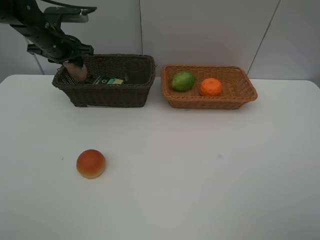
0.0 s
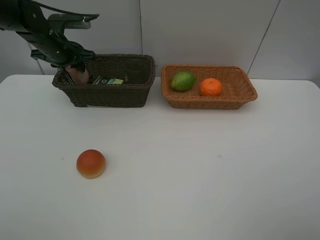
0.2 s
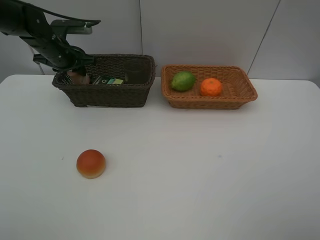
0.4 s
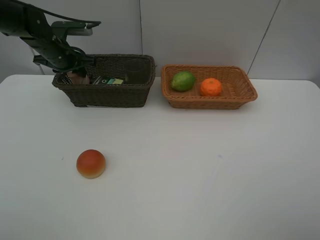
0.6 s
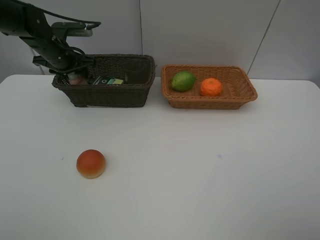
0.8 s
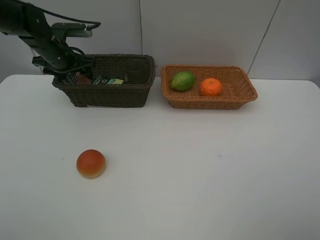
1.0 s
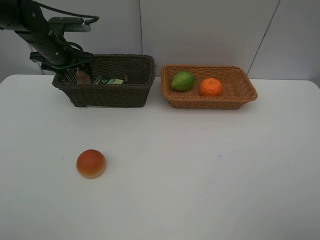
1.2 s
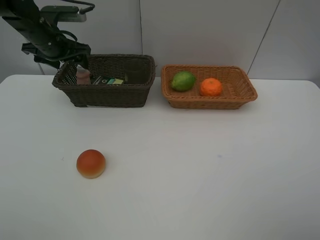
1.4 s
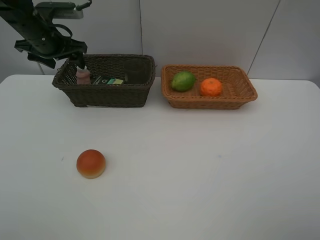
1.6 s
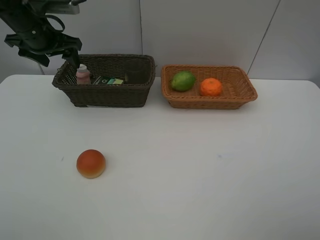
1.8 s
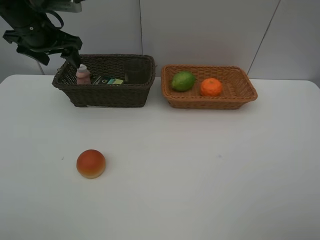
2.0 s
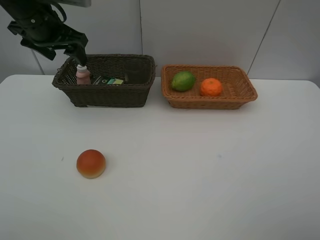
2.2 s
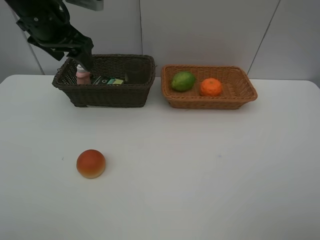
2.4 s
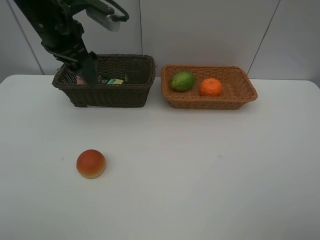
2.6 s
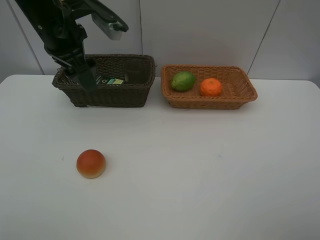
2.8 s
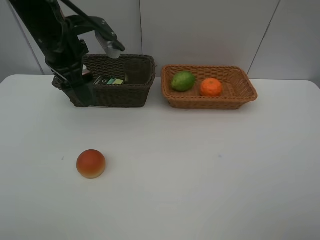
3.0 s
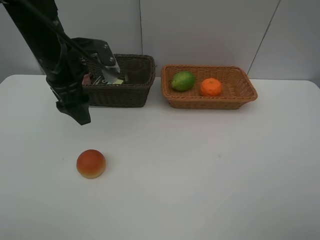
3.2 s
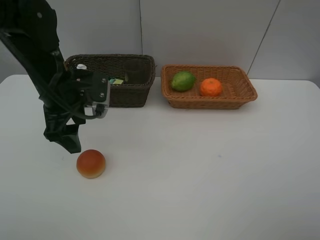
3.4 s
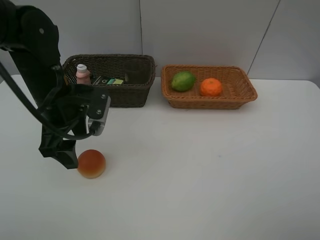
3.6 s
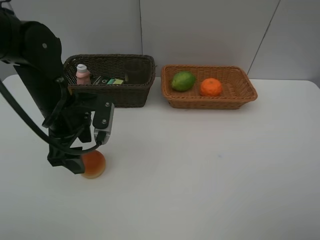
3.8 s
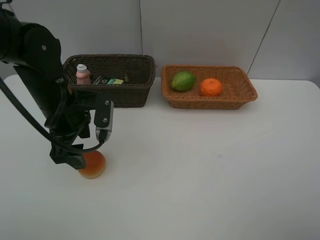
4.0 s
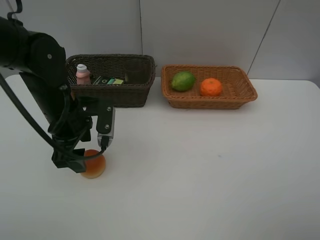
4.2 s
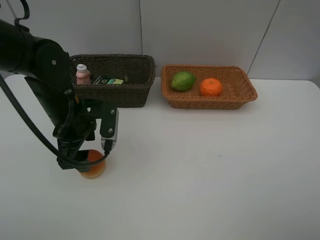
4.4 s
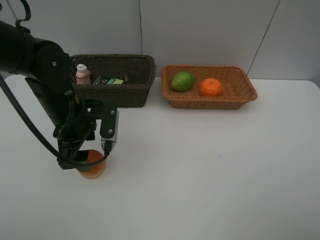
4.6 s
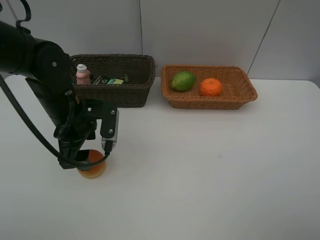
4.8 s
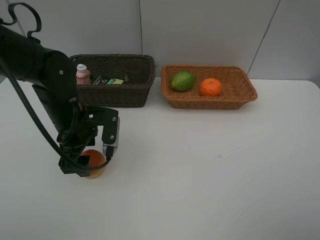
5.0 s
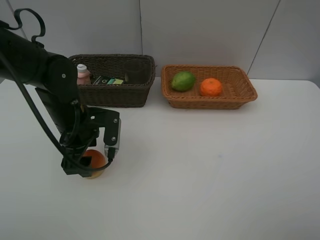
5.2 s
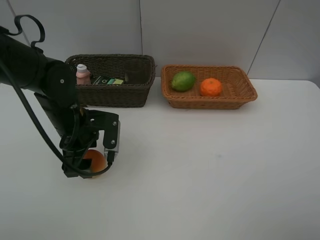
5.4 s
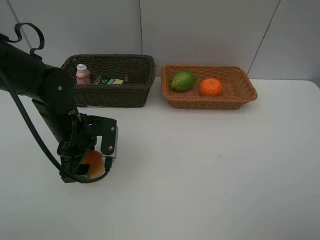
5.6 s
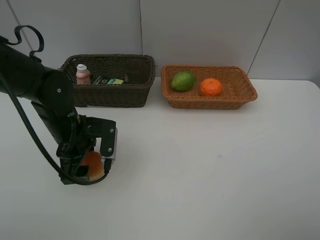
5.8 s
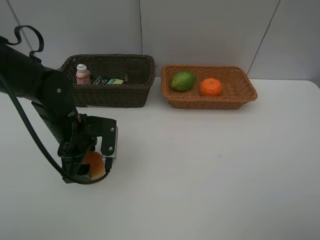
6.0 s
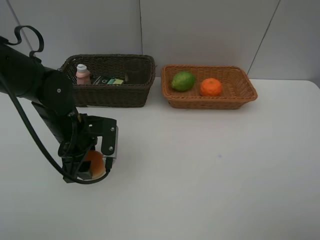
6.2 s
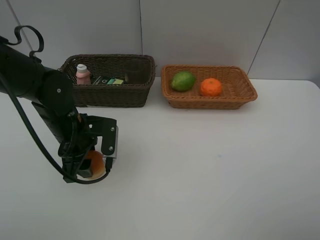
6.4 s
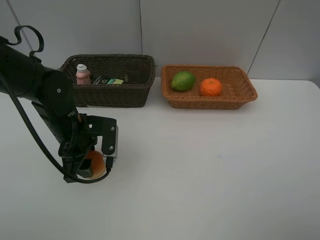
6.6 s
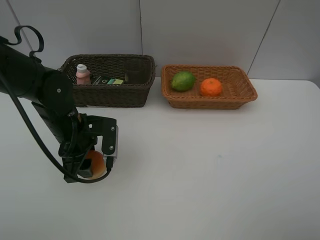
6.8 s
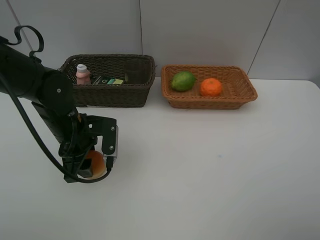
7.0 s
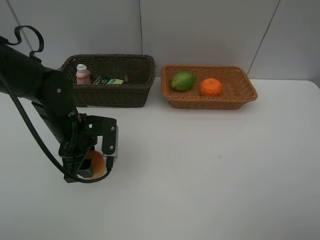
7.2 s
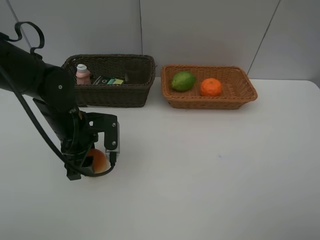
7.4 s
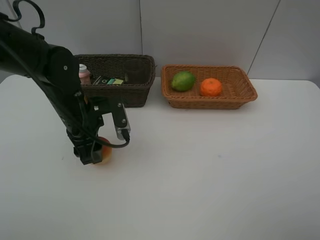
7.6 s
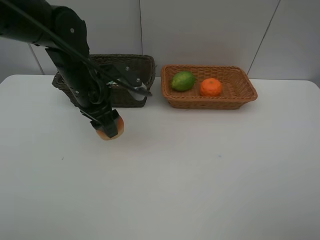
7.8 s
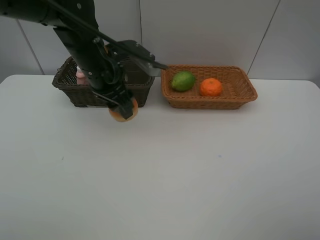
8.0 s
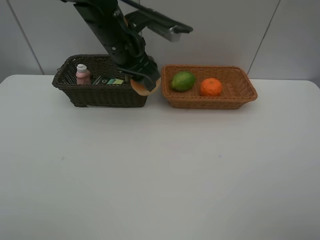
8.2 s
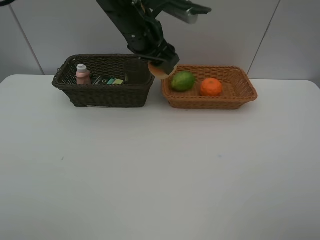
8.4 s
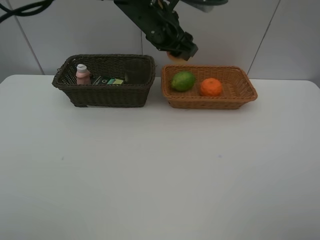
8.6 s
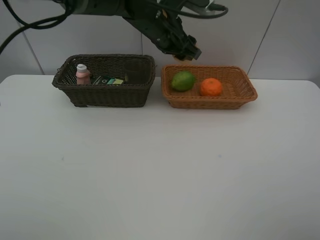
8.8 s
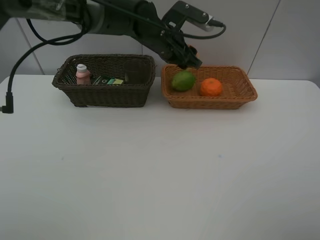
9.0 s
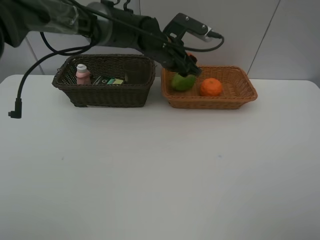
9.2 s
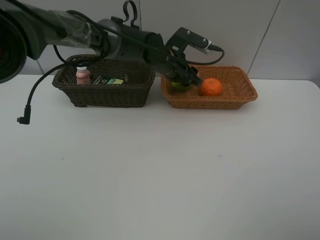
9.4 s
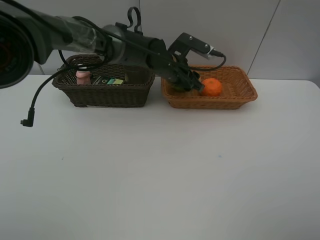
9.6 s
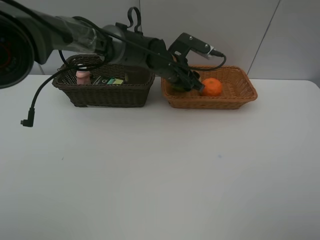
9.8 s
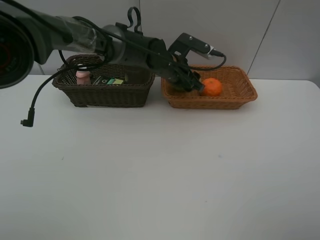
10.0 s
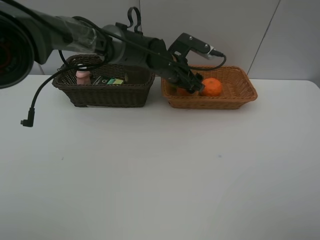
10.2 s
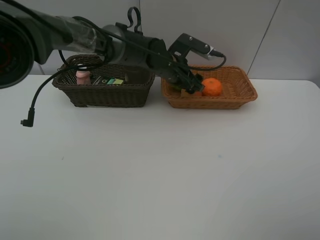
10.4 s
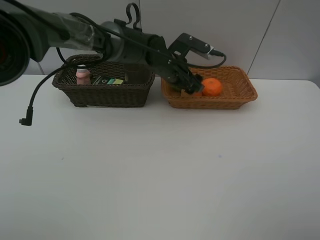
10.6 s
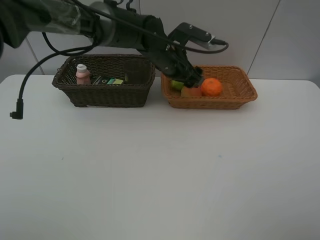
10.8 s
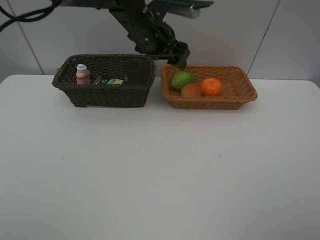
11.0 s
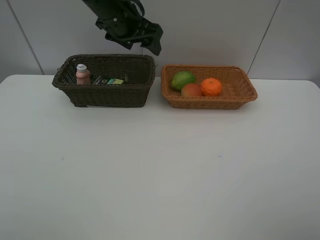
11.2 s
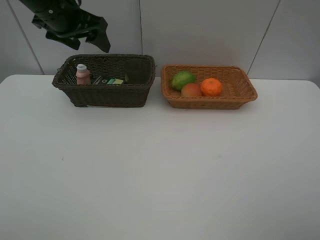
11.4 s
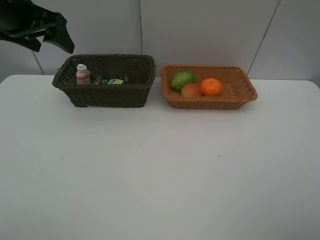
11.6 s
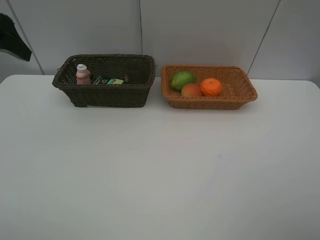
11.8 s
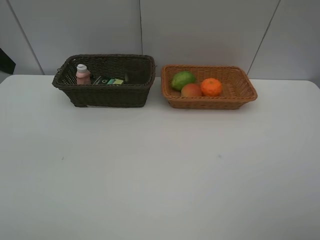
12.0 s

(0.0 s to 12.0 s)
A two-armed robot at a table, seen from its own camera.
Task of the whole recording: place multiple objects separately in different baskets.
0.0 s - 1.6 s: The left gripper opens.
1.6 s - 3.0 s: The left gripper goes some 15 cm backward and to the right.
3.0 s - 4.4 s: The left gripper travels downward and backward by roughly 10 cm.
4.4 s - 7.6 s: The grippers make only small movements.
7.6 s - 9.0 s: The left gripper travels to the right, forward and upward by some 20 cm.
9.0 s - 10.4 s: The left gripper shifts about 5 cm downward.
10.4 s - 12.0 s: The left gripper travels to the left, backward and upward by about 40 cm.

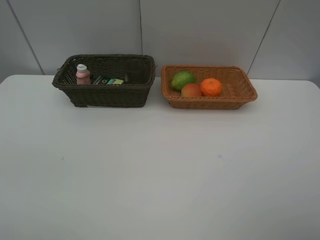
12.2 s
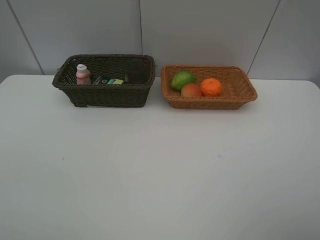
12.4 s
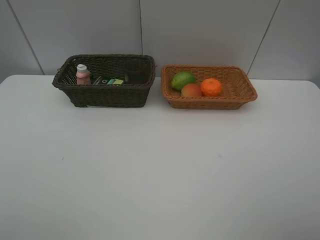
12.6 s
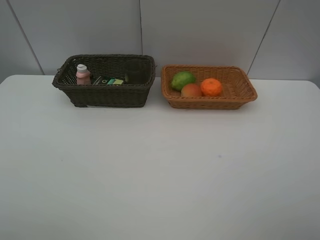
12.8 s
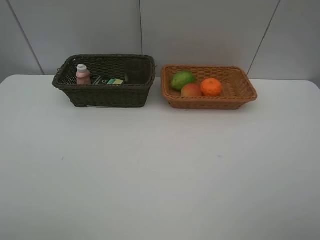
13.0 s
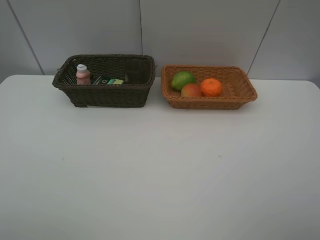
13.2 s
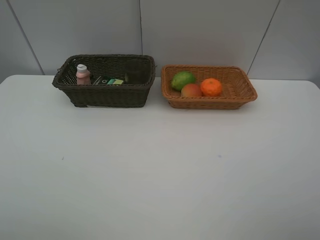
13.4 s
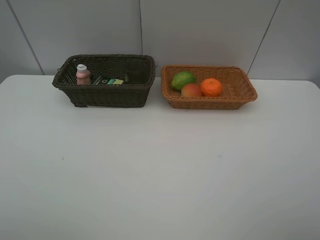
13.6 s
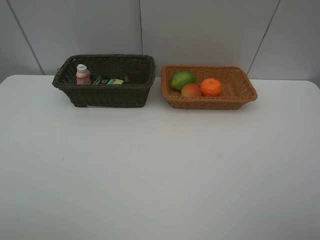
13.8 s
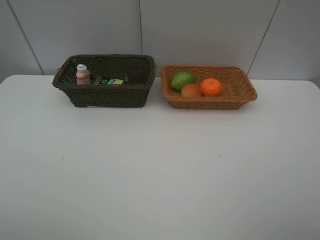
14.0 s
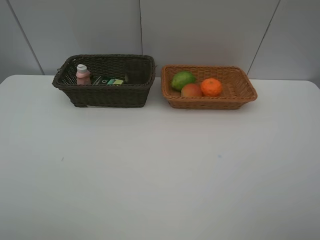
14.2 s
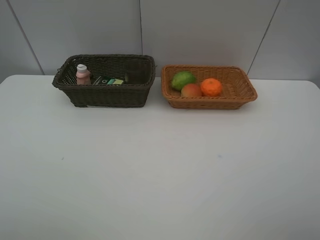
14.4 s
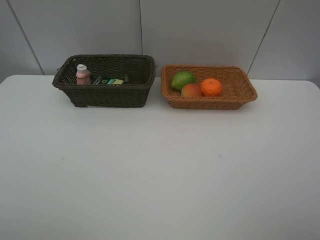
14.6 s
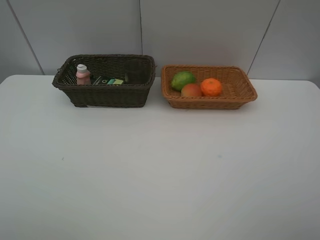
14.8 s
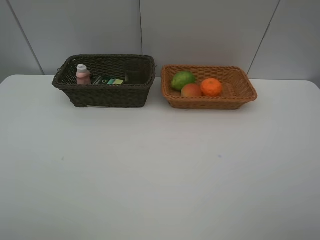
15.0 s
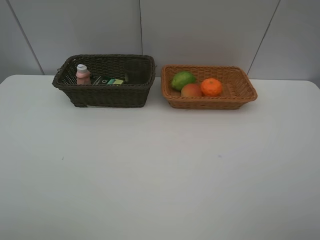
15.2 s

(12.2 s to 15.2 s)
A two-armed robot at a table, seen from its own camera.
Task of the whole recording: place multiple objects separately in different baskets.
13.8 s - 15.2 s: Neither gripper changes place.

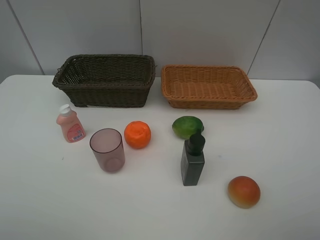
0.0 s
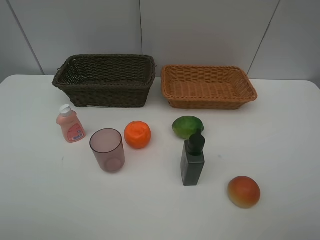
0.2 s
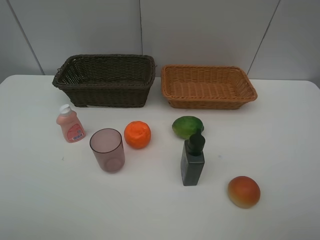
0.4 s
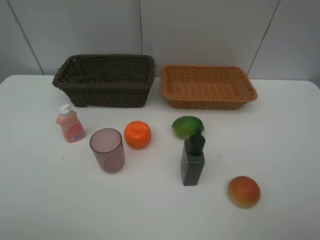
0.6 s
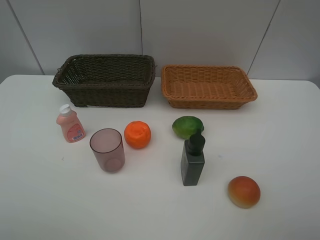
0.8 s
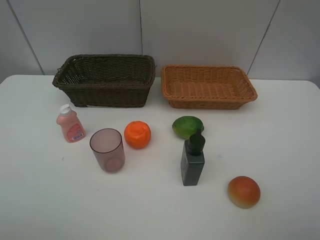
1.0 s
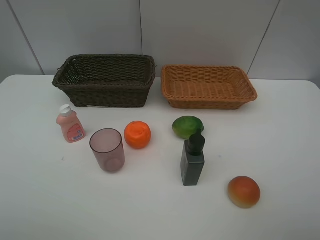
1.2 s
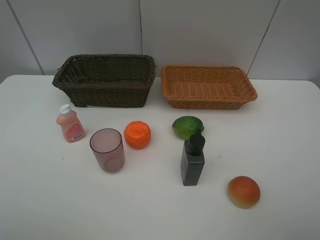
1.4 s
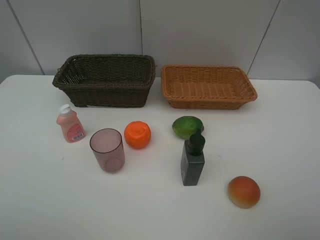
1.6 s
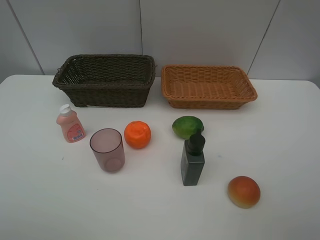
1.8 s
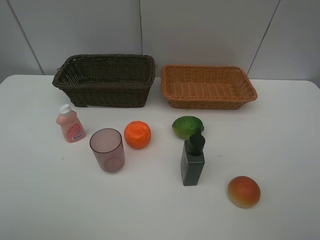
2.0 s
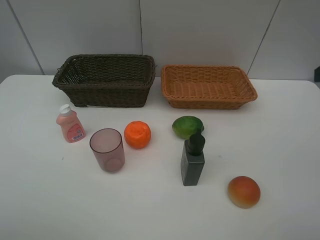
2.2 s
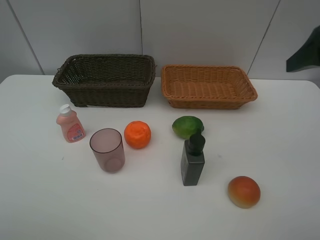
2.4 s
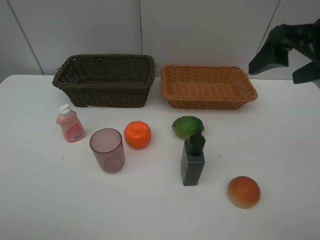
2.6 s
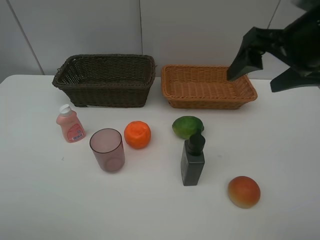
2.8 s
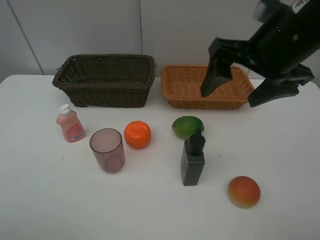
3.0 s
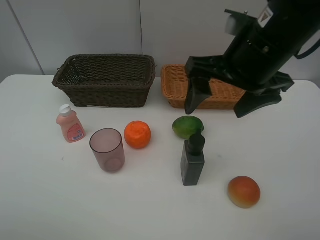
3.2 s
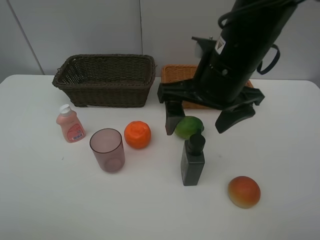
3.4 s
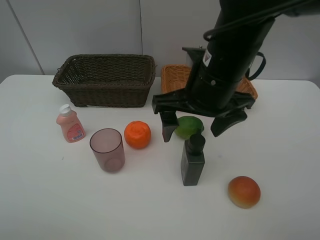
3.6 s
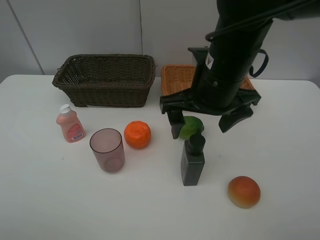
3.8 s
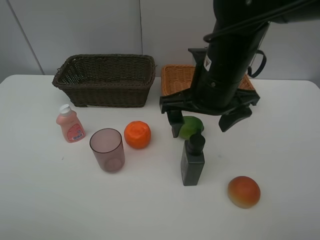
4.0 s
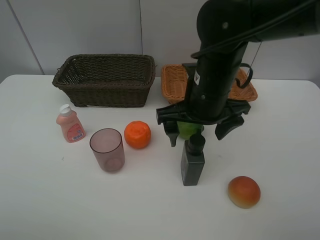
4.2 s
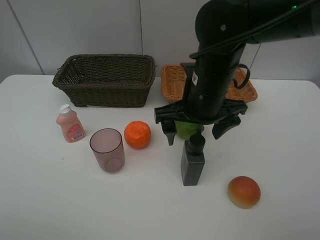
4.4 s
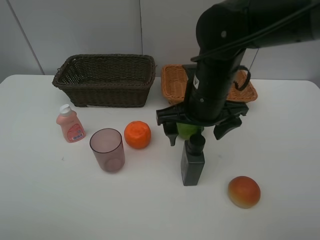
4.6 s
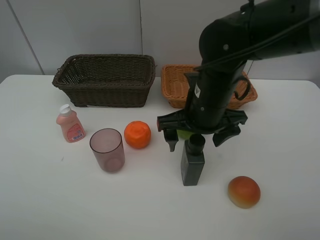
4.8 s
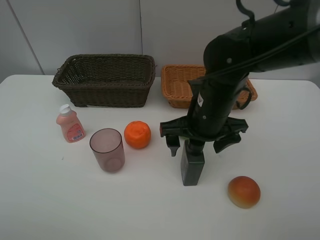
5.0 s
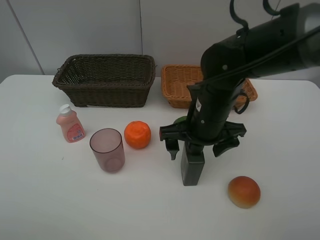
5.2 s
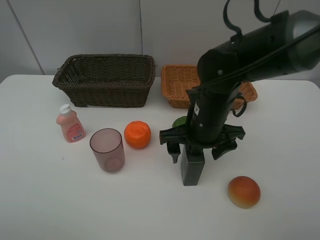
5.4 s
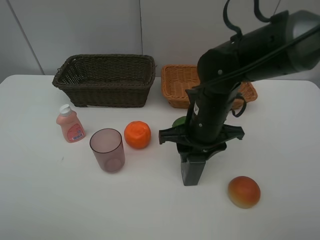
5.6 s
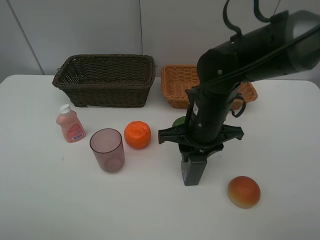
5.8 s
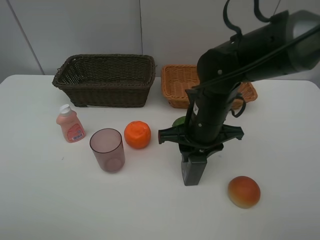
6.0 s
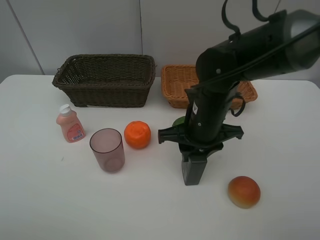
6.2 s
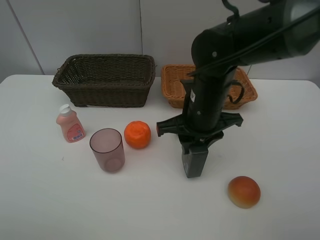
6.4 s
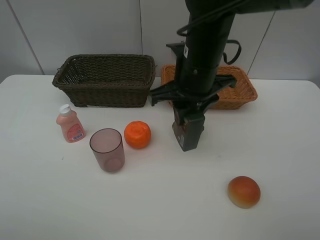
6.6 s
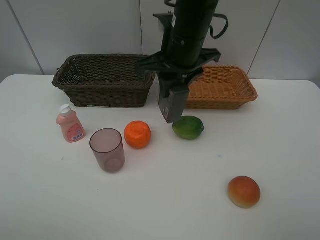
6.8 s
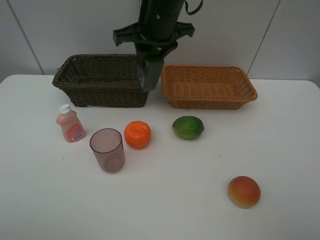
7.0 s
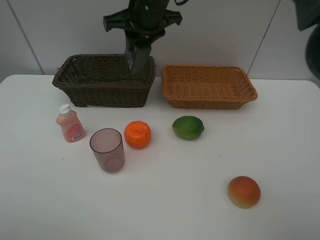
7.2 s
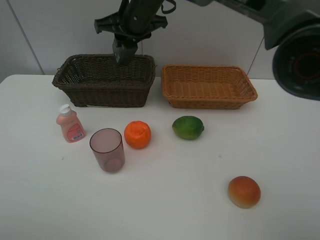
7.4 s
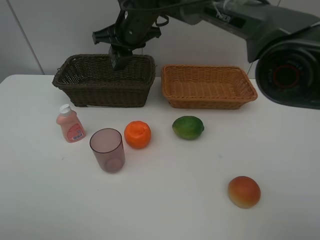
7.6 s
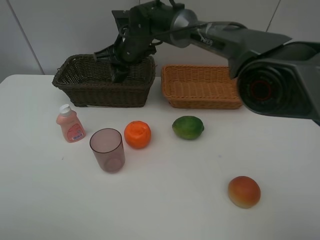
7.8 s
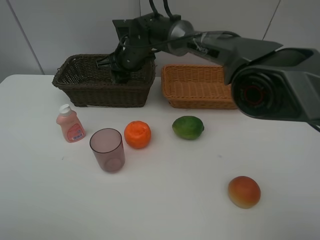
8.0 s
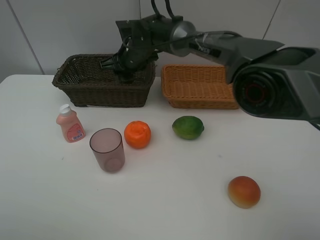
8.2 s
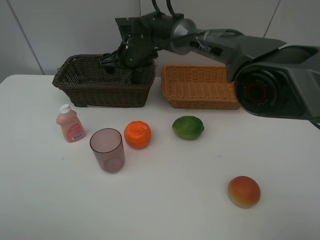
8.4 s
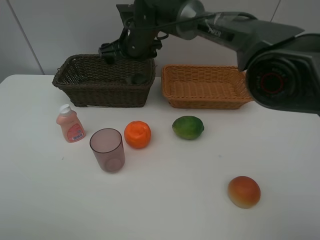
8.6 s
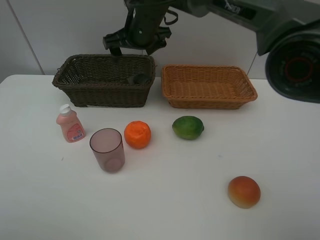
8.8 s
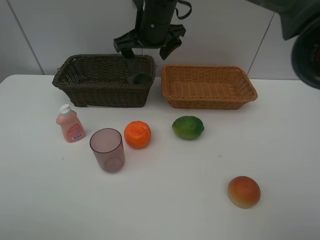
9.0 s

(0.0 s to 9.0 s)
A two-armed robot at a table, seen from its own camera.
Task of the whole recording: place multiple objects separately in different baskets.
1.6 s - 3.0 s: The right gripper travels forward and to the left by roughly 25 cm.
3.0 s - 4.4 s: The right gripper travels downward and to the left by about 10 cm.
4.4 s - 6.0 s: The right gripper moves downward, roughly 5 cm, and closes its fingers.
6.0 s - 7.6 s: The right gripper moves forward, to the left and upward, roughly 25 cm.
7.6 s - 9.0 s: The right gripper travels downward and back again, approximately 5 cm each way, and opens.
